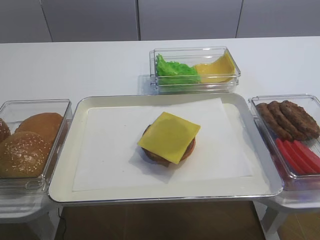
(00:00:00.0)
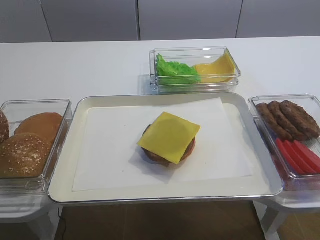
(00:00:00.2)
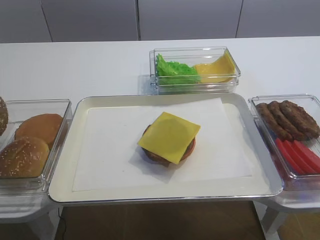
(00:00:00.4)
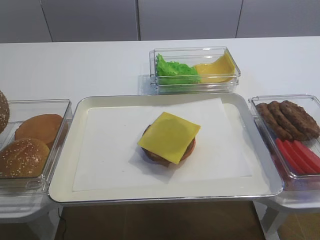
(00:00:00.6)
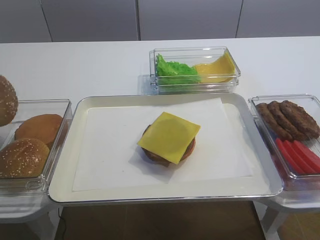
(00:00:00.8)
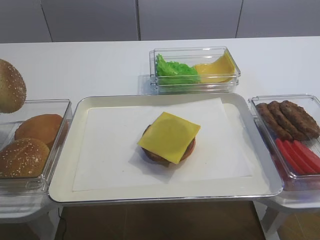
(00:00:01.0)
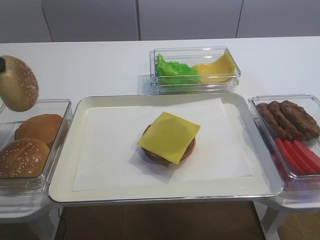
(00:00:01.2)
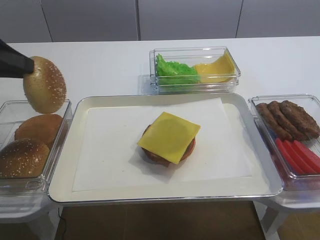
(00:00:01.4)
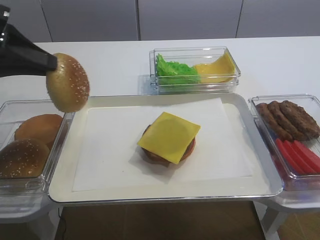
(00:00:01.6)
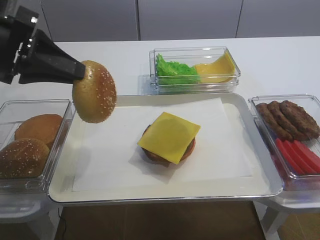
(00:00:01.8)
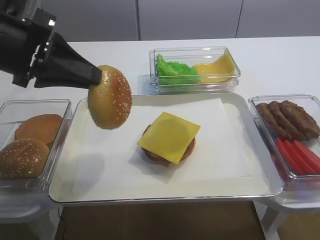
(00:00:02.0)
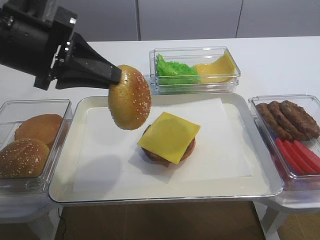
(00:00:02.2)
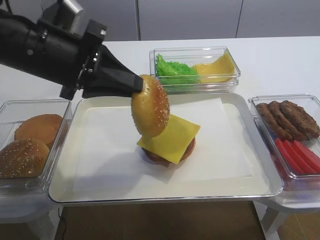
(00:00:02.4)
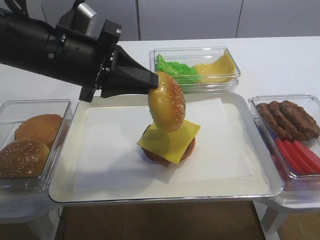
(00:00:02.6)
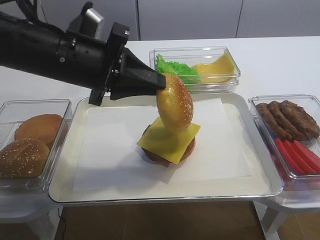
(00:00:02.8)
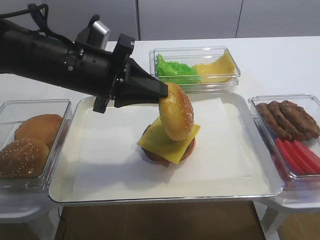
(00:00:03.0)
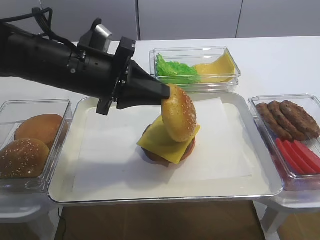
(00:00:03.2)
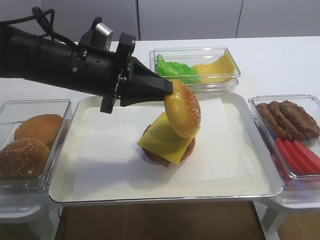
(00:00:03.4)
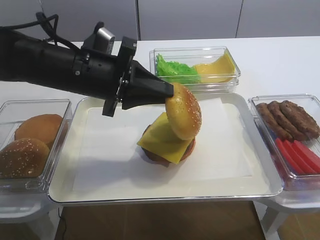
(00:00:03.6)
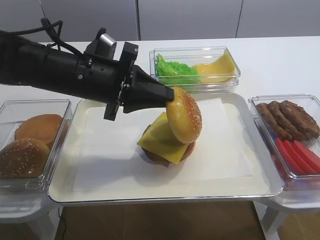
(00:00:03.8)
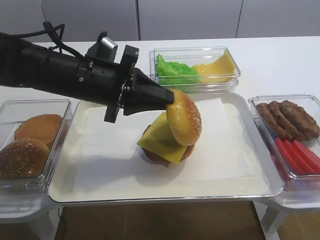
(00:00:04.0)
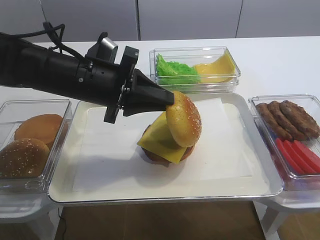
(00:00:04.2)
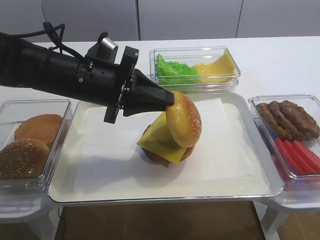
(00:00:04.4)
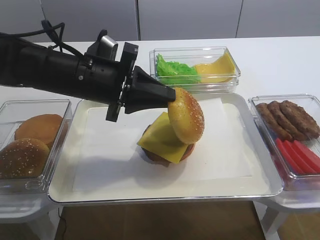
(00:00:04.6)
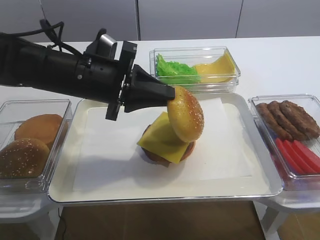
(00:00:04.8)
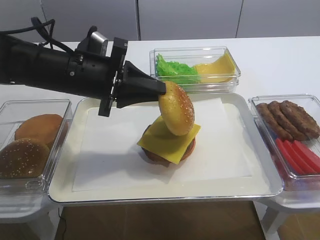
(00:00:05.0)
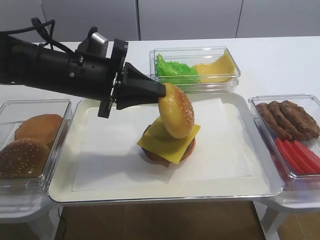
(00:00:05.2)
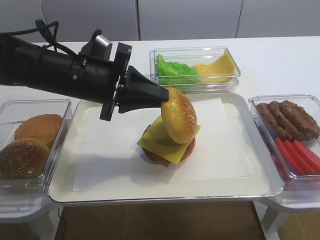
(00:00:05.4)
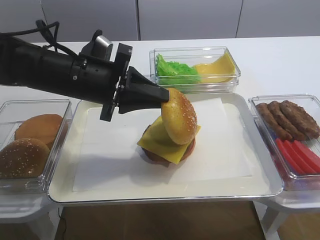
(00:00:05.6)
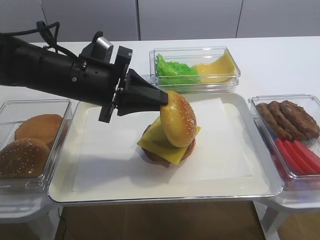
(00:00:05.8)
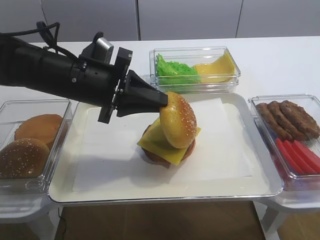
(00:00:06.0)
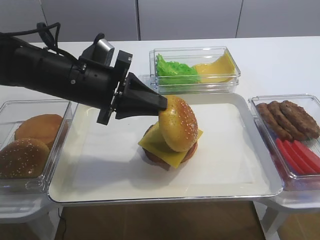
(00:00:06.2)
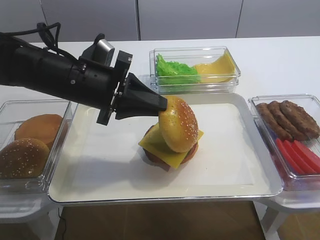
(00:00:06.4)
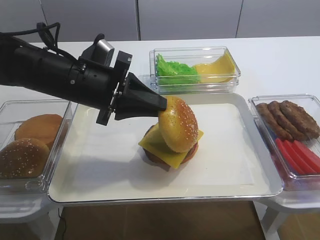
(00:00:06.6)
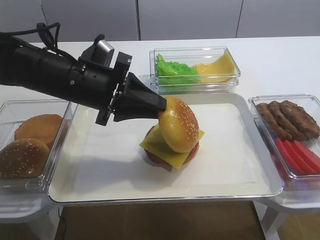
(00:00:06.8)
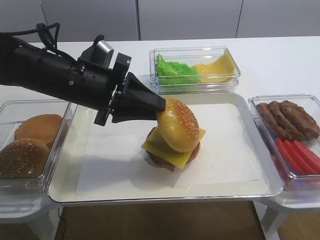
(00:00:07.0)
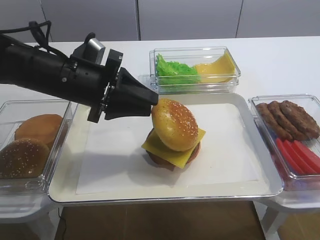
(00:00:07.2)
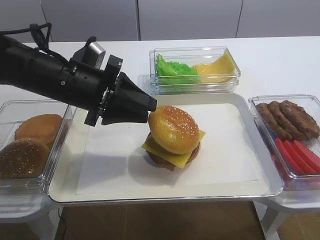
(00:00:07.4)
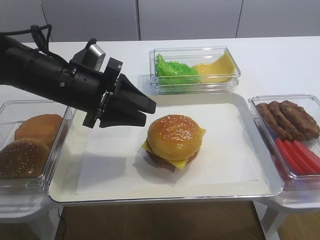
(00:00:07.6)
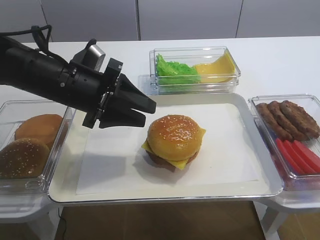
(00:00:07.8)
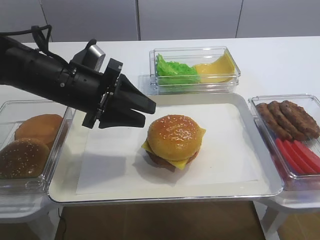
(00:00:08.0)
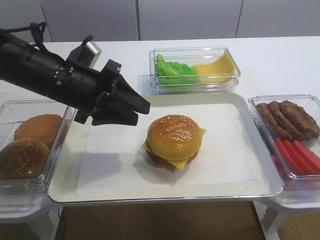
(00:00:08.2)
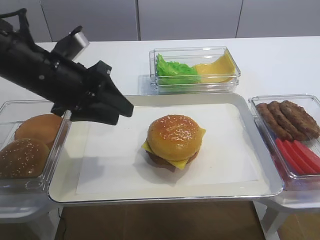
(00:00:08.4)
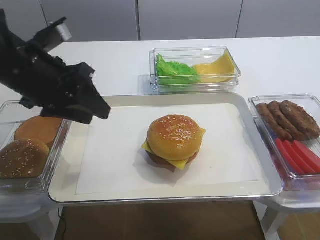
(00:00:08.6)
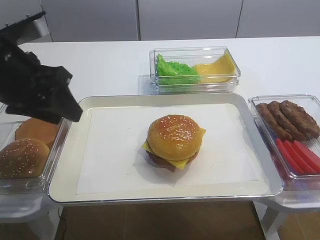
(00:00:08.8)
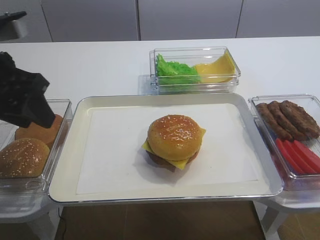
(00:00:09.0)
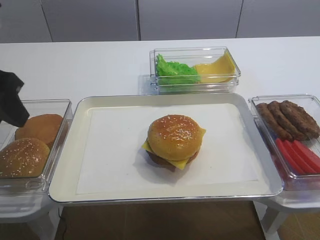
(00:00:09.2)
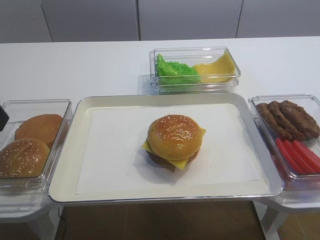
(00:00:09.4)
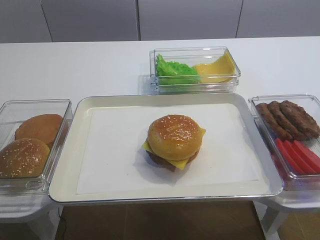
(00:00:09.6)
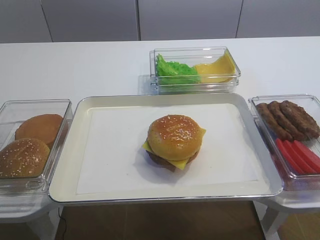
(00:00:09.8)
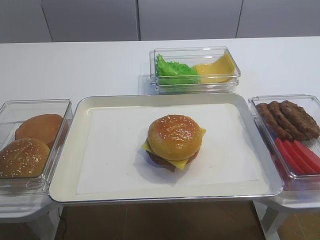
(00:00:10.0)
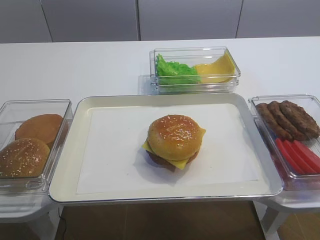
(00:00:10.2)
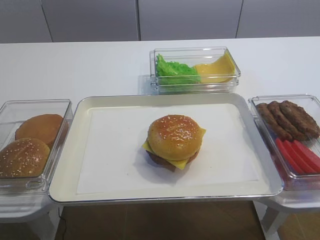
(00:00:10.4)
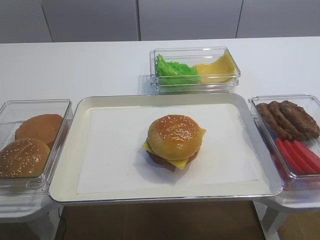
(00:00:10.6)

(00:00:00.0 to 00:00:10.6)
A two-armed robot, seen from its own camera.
Step, 00:00:01.4 - 00:00:08.0: Place the hamburger lid on the cheese slice with the left gripper.
00:00:00.0 - 00:00:01.6: The left gripper travels to the right by approximately 10 cm.
00:00:01.6 - 00:00:03.0: The left gripper shifts some 15 cm to the right.
00:00:03.0 - 00:00:06.0: The grippers make only small movements.
00:00:06.0 - 00:00:07.6: The left gripper opens.
00:00:07.6 - 00:00:09.0: The left gripper travels upward, to the left and backward by approximately 15 cm.
00:00:09.0 - 00:00:10.6: The left gripper heads backward, covering approximately 25 cm.

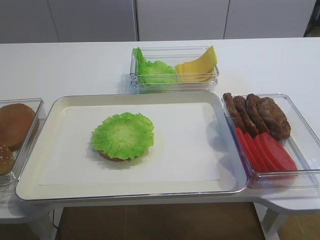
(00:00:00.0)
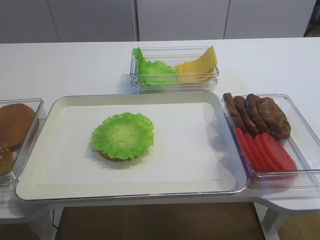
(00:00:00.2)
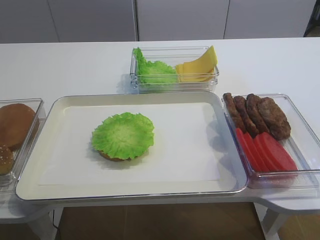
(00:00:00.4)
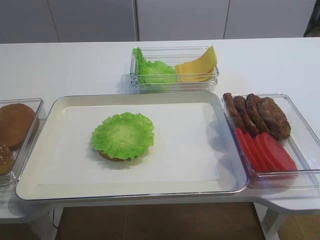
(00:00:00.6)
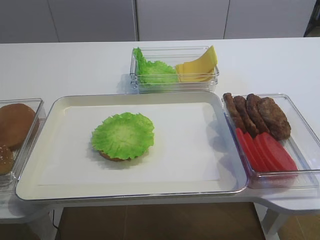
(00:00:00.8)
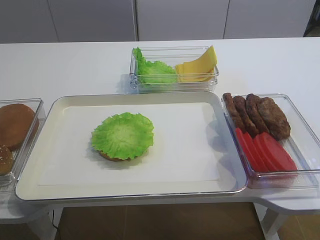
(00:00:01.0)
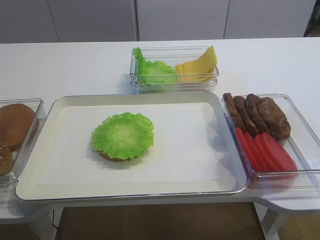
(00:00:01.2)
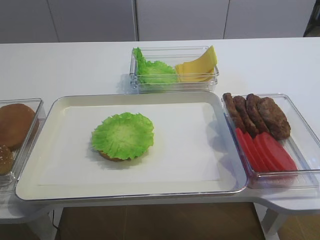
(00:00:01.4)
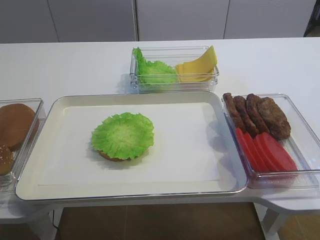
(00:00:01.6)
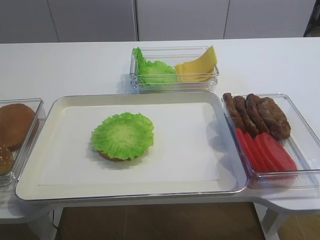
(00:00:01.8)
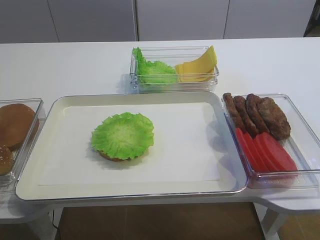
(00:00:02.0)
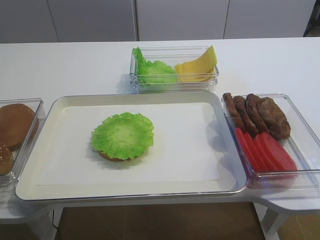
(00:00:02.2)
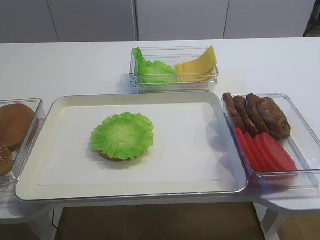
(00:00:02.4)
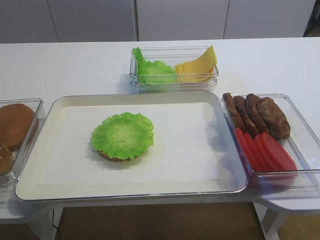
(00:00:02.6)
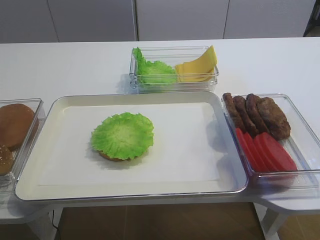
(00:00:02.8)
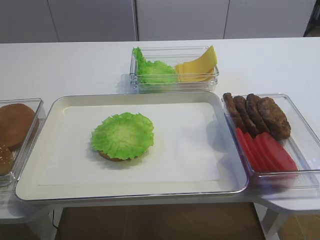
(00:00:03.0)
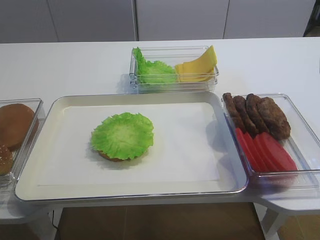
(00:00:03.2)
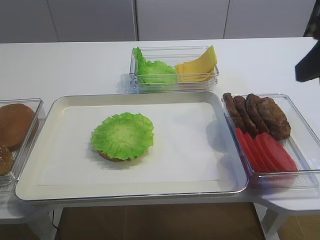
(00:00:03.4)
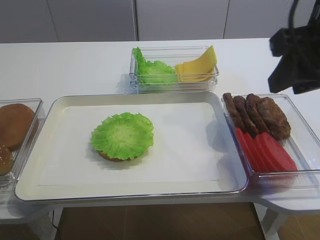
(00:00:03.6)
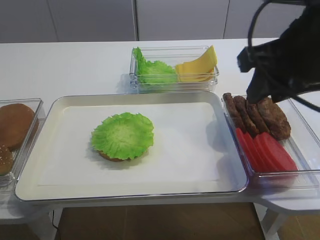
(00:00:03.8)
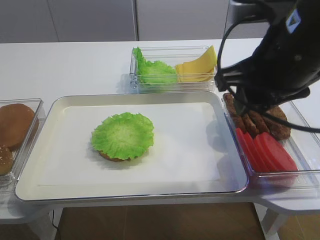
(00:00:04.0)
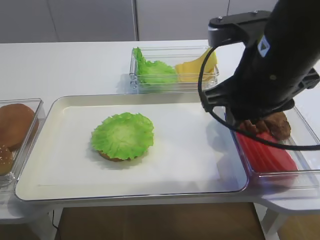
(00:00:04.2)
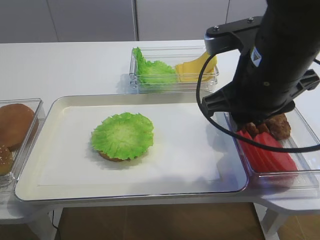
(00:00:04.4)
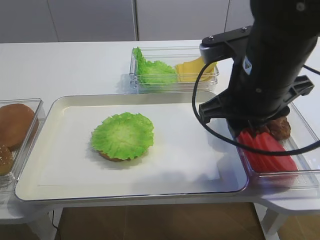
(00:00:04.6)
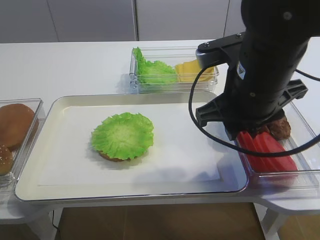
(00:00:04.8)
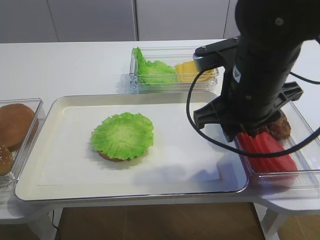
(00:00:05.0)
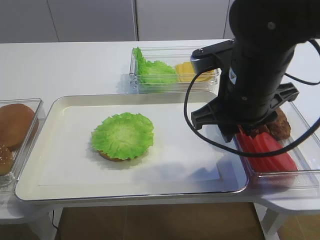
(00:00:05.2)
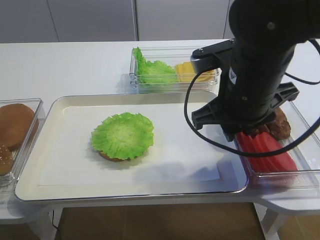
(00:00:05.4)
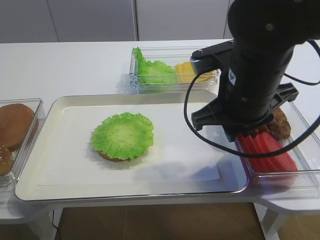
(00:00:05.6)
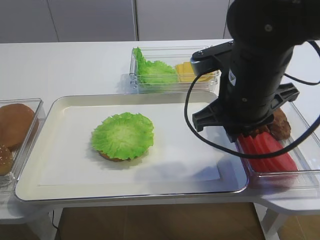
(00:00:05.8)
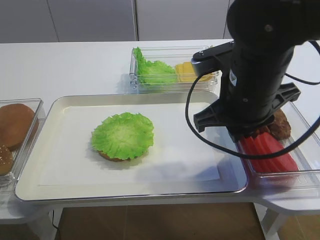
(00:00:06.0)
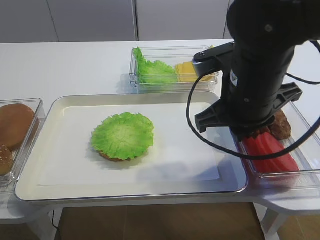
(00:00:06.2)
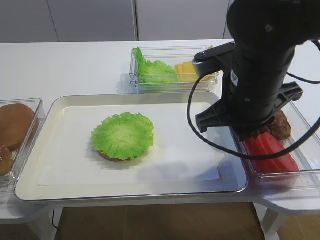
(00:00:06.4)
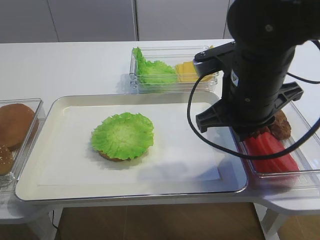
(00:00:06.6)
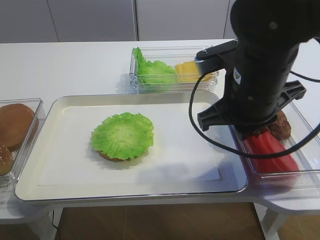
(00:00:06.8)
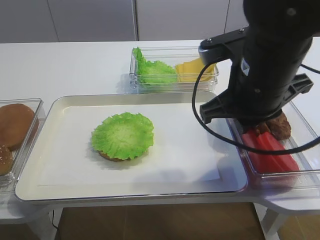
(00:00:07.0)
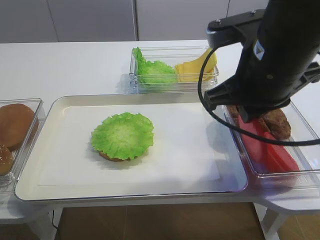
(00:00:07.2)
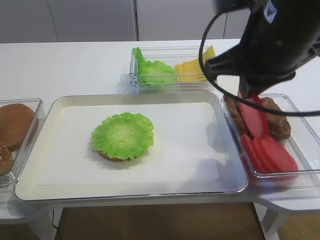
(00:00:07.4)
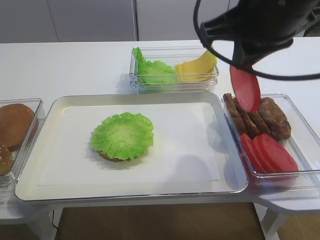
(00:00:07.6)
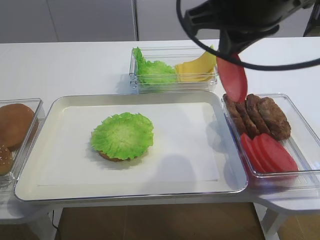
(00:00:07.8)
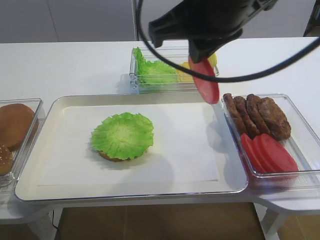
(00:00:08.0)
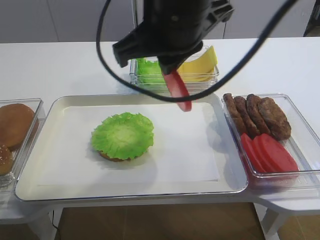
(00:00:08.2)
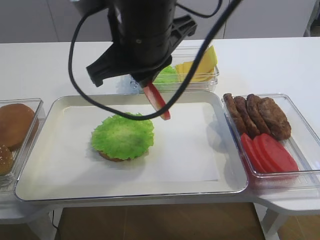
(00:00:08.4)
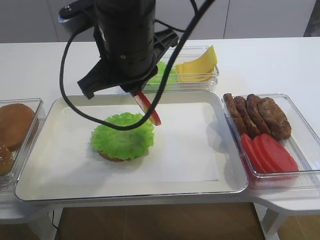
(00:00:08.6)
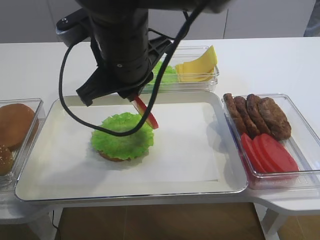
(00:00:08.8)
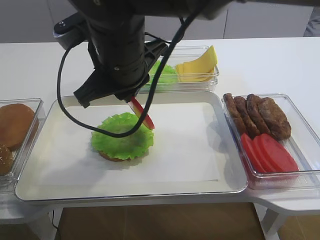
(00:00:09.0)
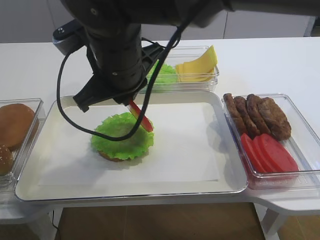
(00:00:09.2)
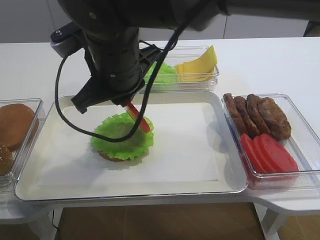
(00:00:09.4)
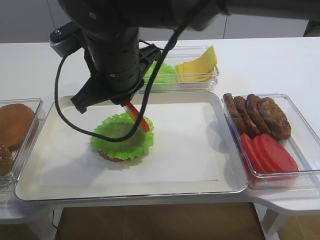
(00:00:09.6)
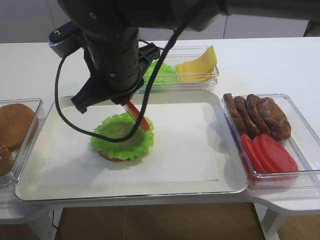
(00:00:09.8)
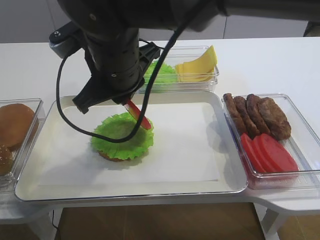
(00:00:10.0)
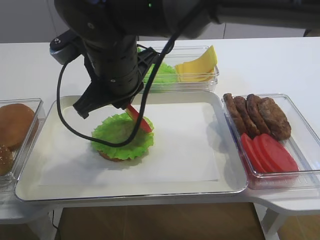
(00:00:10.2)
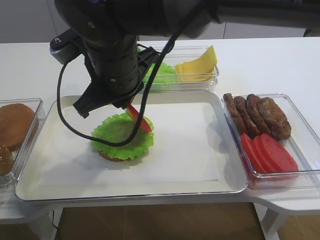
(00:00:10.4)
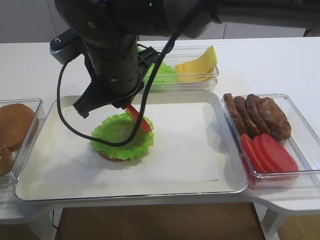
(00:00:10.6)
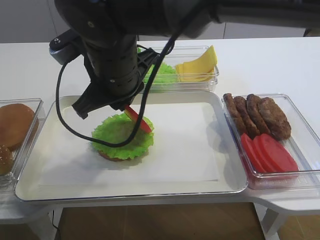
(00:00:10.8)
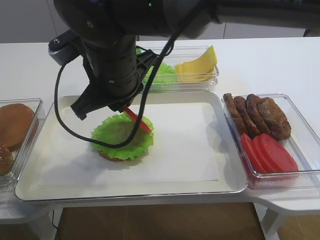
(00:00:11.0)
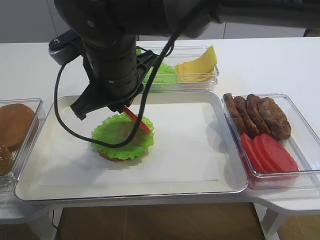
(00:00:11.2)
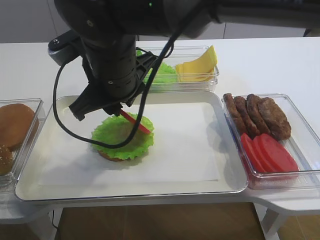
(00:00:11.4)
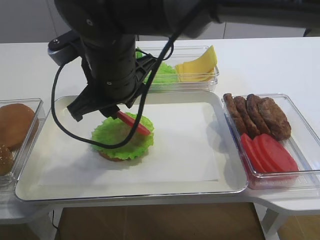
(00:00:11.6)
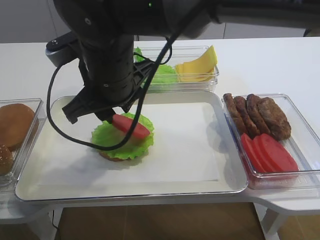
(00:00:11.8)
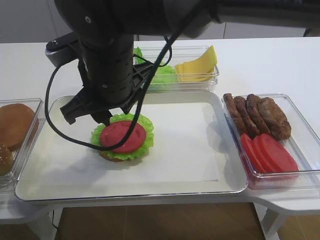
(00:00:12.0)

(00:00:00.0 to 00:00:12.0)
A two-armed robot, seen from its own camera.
Step, 00:00:00.0 - 00:00:07.2: Pick up the tomato slice with the right gripper.
00:00:01.6 - 00:00:03.0: The right gripper travels forward and upward by roughly 15 cm, and opens.
00:00:03.0 - 00:00:04.4: The right gripper heads to the left, forward and downward, covering some 20 cm.
00:00:04.4 - 00:00:06.0: The right gripper closes.
00:00:06.0 - 00:00:07.6: The right gripper is displaced upward by some 10 cm.
00:00:07.6 - 00:00:09.0: The right gripper heads to the left and downward, covering roughly 15 cm.
00:00:09.0 - 00:00:10.4: The grippers make only small movements.
00:00:10.4 - 00:00:12.0: The right gripper opens.
